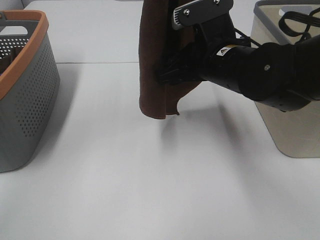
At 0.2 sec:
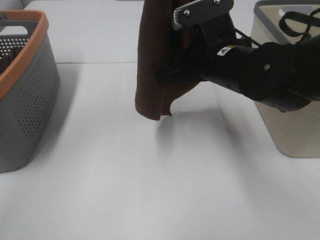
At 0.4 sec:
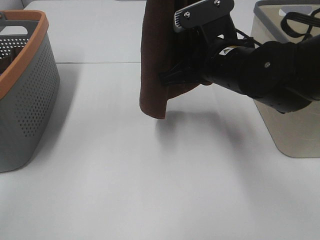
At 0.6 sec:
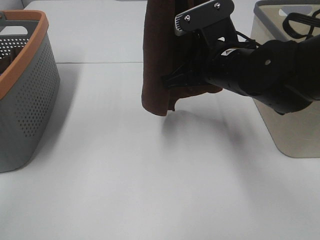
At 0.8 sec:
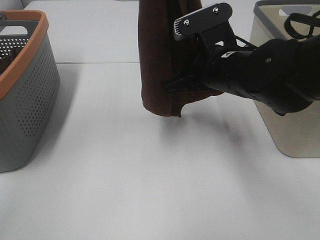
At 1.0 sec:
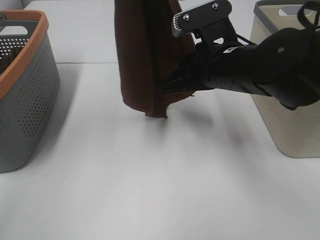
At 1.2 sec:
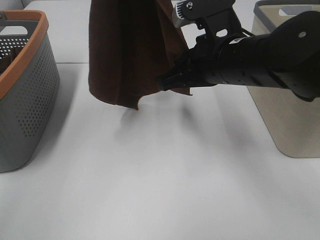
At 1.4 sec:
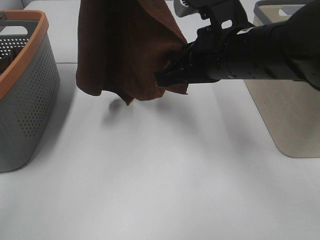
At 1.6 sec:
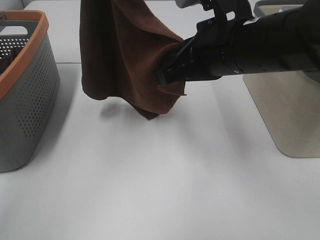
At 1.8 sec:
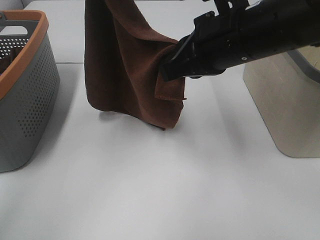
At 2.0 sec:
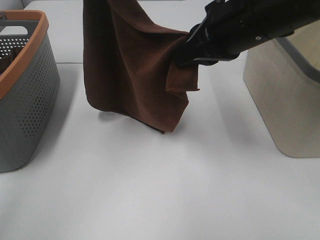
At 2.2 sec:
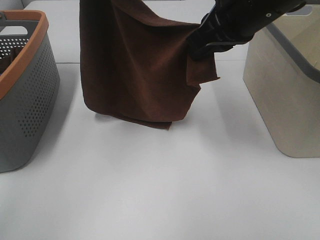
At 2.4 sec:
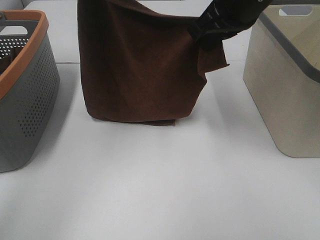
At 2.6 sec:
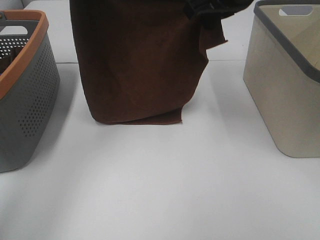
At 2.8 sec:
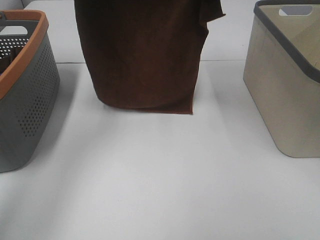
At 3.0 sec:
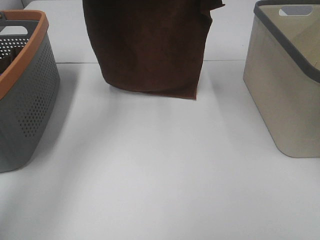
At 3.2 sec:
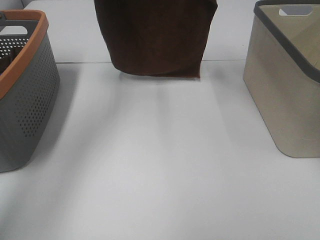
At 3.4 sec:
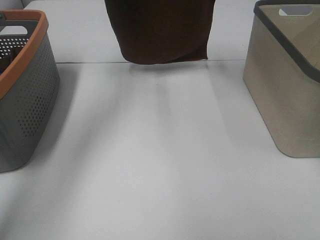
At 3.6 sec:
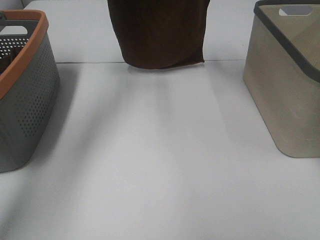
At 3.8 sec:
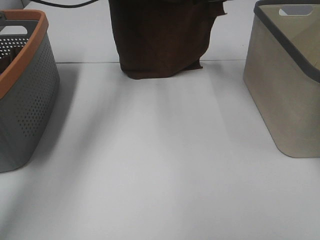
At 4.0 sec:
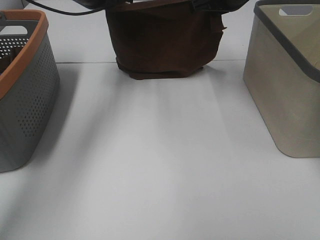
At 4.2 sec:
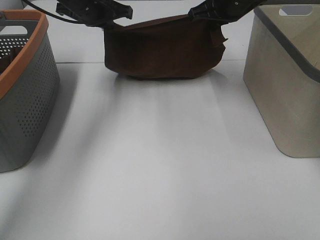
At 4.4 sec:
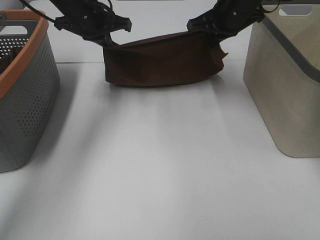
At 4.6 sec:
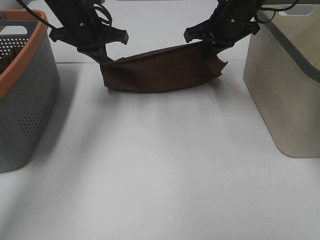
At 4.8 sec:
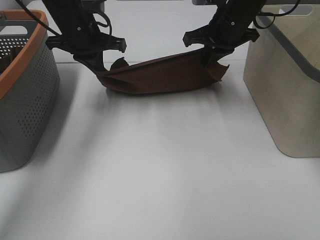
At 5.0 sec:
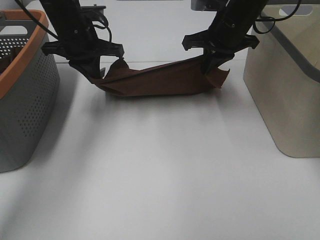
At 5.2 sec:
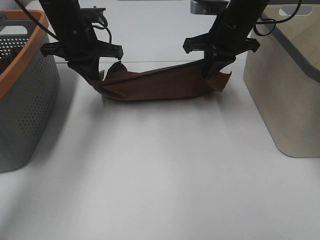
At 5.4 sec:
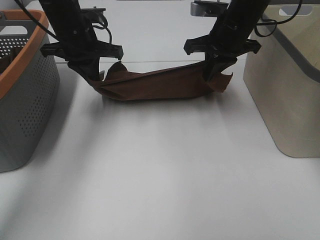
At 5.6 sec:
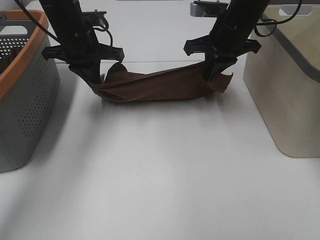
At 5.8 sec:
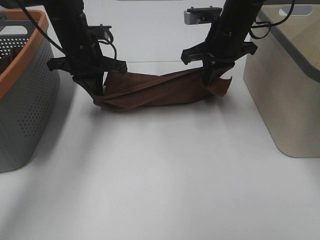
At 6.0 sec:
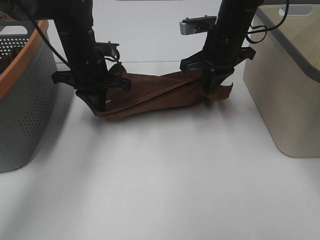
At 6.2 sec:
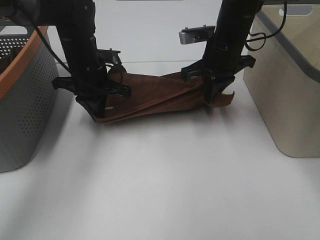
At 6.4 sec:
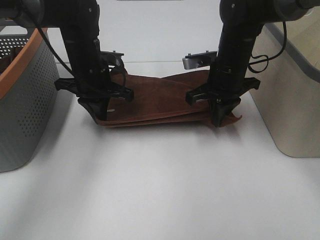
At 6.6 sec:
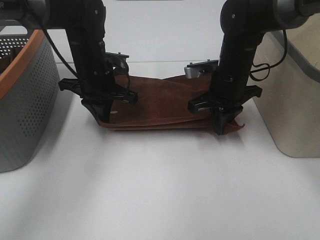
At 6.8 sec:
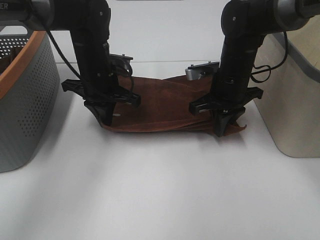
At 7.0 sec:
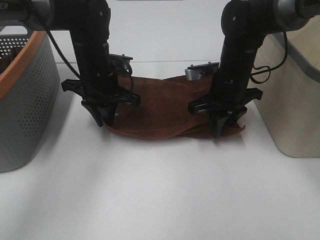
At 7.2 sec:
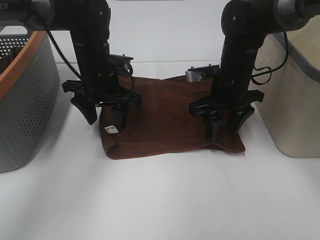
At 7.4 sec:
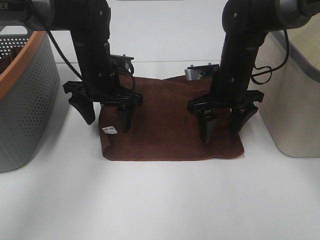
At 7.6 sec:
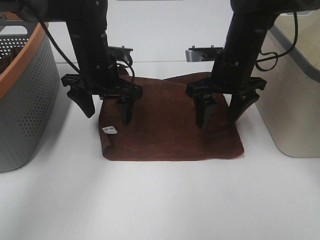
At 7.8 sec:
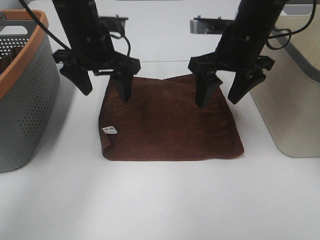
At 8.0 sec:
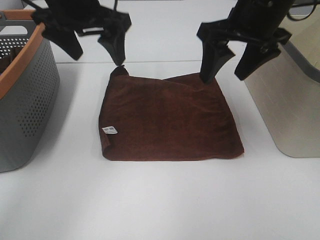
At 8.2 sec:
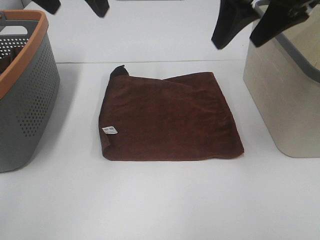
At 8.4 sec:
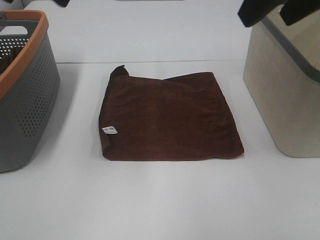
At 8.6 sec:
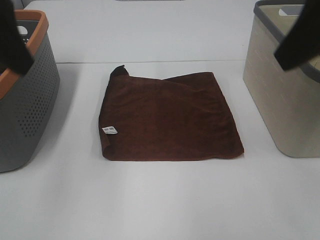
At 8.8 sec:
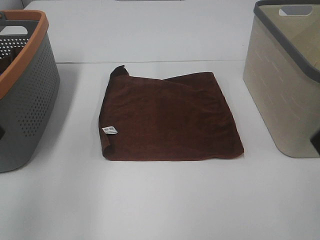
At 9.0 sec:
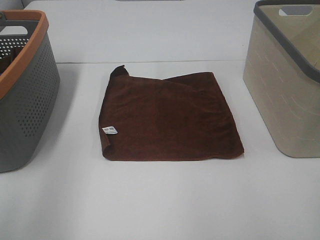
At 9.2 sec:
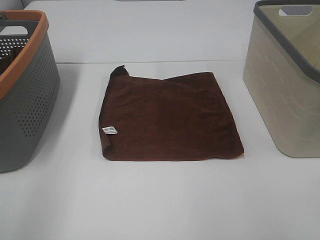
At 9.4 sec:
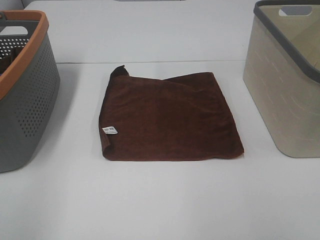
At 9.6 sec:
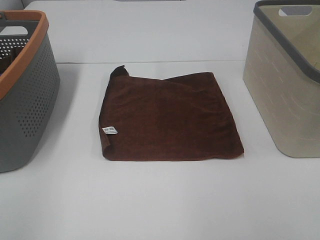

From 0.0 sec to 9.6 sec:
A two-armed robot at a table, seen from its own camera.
Task of the whole recording: Remove the towel and place it.
Step, from 0.0 sec to 2.2 sec: Left hand: spread the brown towel flat on the table.
Step, from 0.0 sec to 2.2 sec: Right hand: spread the brown towel flat on the table.
From 0.0 sec to 1.6 sec: The right gripper ends up some 5 cm from where it was, and closes; the left gripper is displaced to the left and forward by about 10 cm.
From 1.6 sec to 3.2 sec: The left gripper shifts some 15 cm forward and downward, while the right gripper moves forward, about 20 cm.
From 3.2 sec to 4.8 sec: Both grippers move downward, roughly 15 cm.
From 4.8 sec to 6.4 sec: The grippers both shift downward by some 5 cm.
From 6.4 sec to 8.0 sec: The right gripper heads upward and backward, covering roughly 15 cm, and opens its fingers. Meanwhile the left gripper shifts some 15 cm upward, and opens its fingers.
From 8.0 sec to 9.6 sec: The left gripper is displaced backward and to the left by about 40 cm. Meanwhile the right gripper shifts about 35 cm backward and to the right.

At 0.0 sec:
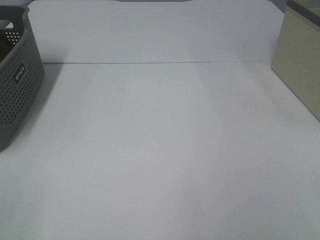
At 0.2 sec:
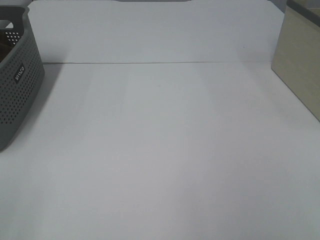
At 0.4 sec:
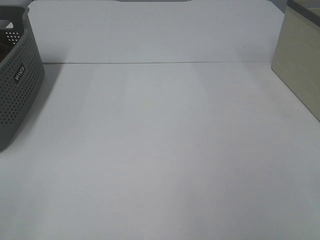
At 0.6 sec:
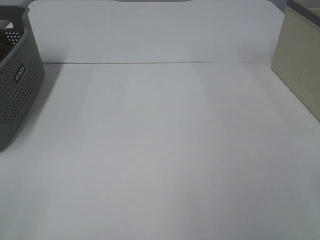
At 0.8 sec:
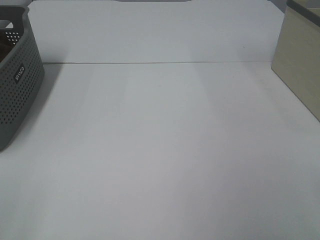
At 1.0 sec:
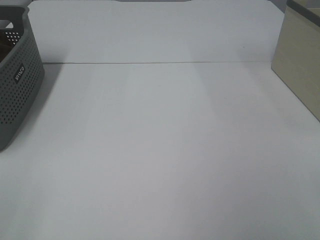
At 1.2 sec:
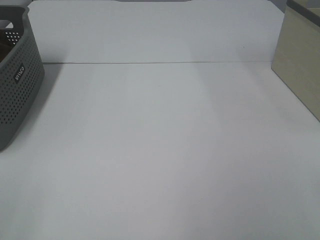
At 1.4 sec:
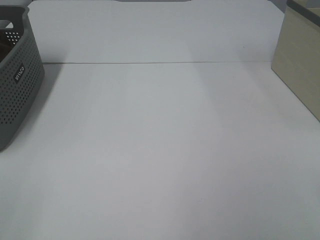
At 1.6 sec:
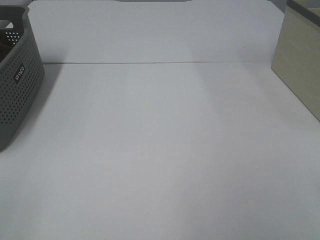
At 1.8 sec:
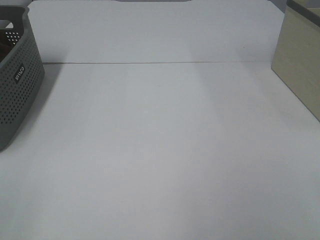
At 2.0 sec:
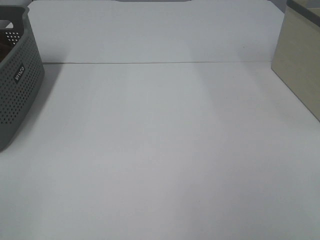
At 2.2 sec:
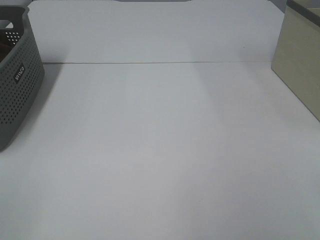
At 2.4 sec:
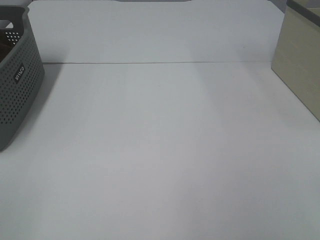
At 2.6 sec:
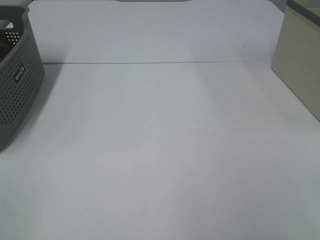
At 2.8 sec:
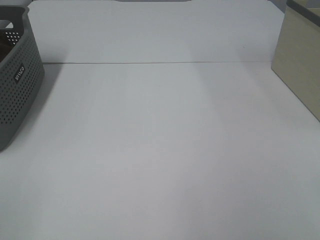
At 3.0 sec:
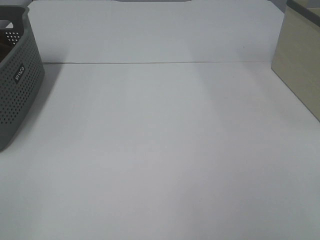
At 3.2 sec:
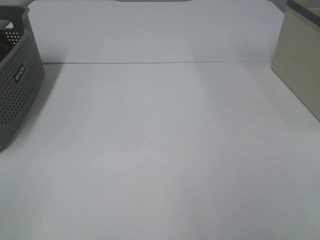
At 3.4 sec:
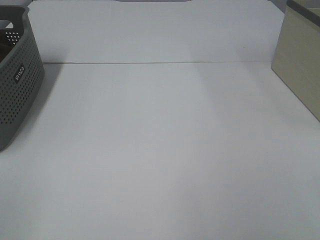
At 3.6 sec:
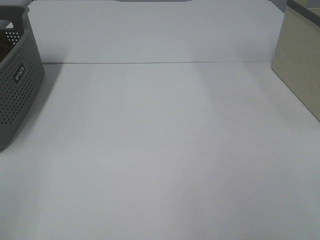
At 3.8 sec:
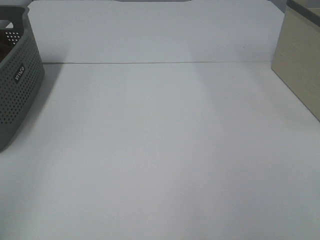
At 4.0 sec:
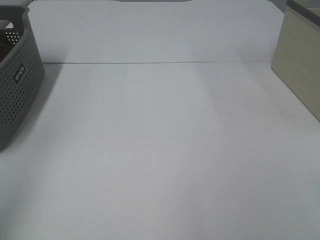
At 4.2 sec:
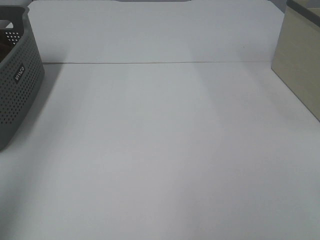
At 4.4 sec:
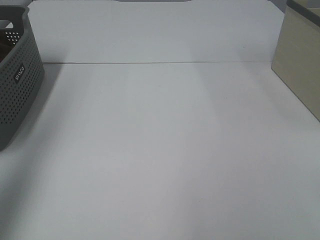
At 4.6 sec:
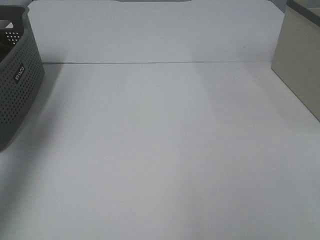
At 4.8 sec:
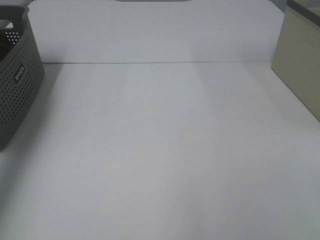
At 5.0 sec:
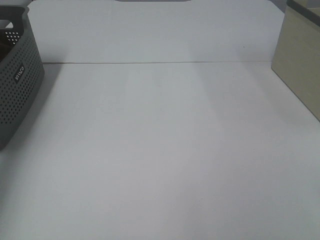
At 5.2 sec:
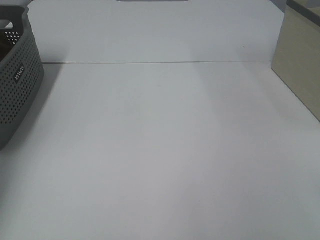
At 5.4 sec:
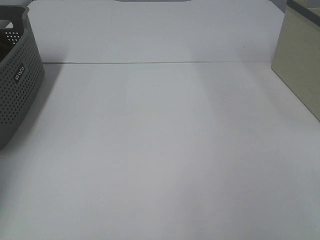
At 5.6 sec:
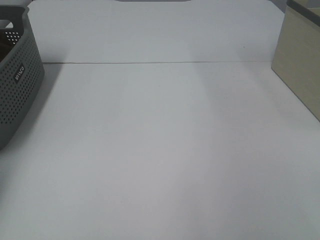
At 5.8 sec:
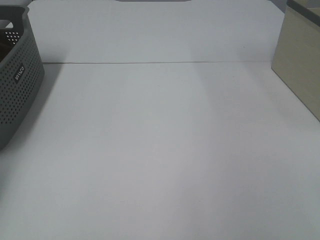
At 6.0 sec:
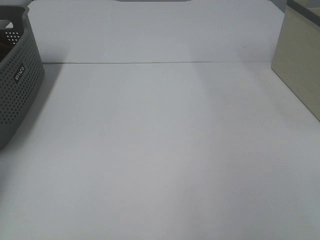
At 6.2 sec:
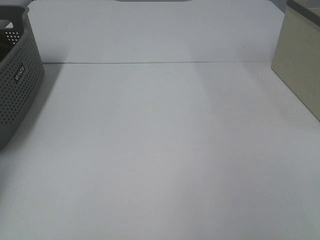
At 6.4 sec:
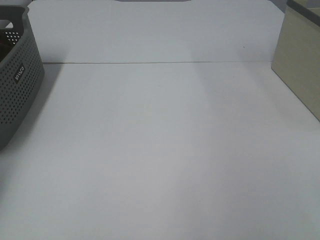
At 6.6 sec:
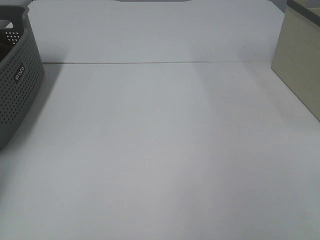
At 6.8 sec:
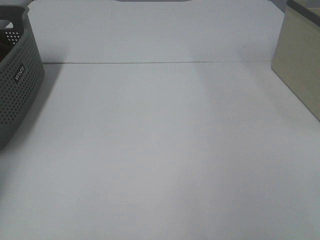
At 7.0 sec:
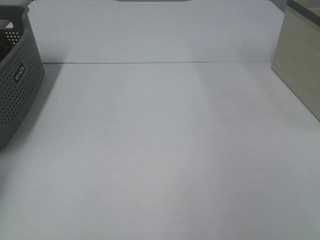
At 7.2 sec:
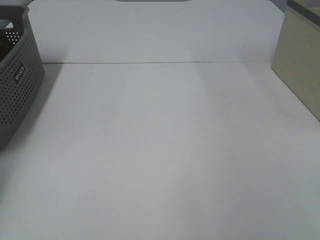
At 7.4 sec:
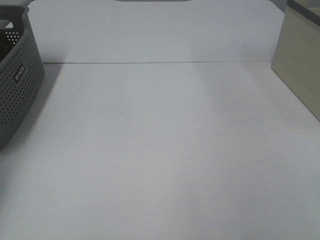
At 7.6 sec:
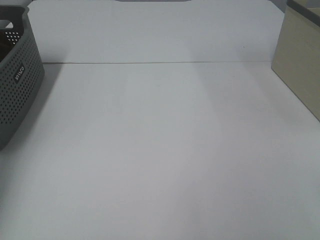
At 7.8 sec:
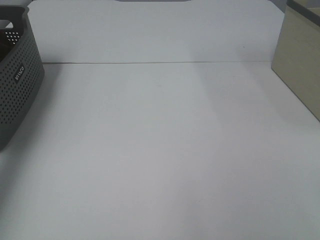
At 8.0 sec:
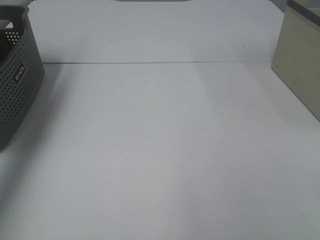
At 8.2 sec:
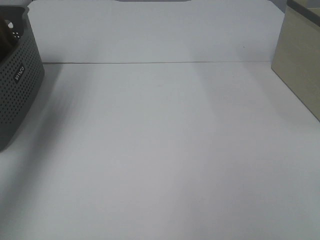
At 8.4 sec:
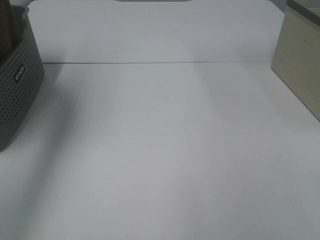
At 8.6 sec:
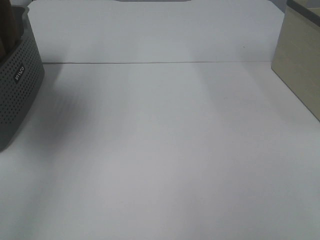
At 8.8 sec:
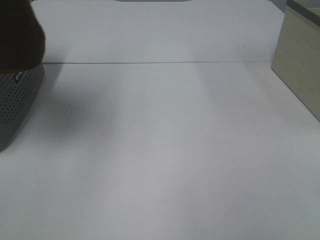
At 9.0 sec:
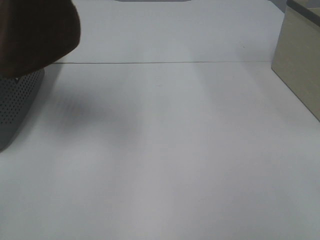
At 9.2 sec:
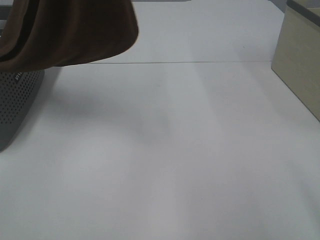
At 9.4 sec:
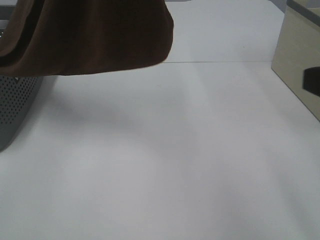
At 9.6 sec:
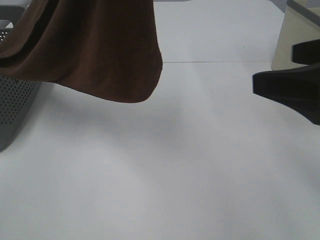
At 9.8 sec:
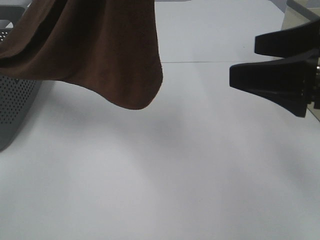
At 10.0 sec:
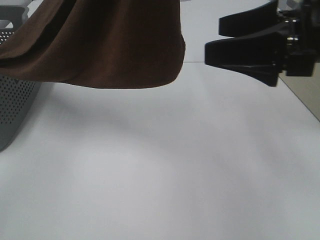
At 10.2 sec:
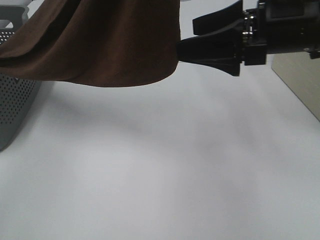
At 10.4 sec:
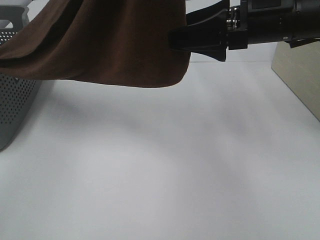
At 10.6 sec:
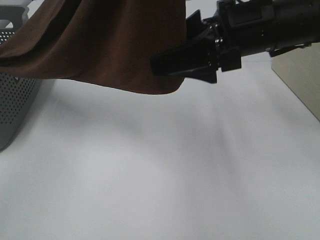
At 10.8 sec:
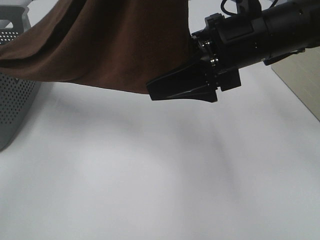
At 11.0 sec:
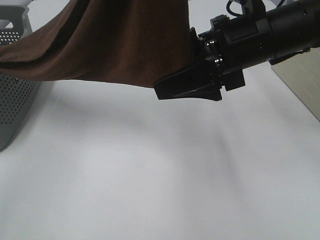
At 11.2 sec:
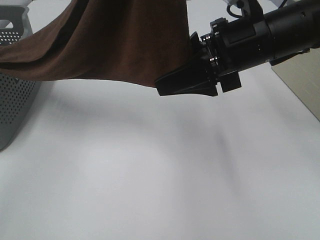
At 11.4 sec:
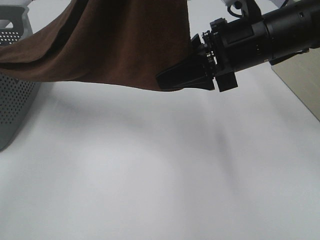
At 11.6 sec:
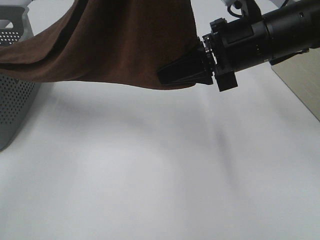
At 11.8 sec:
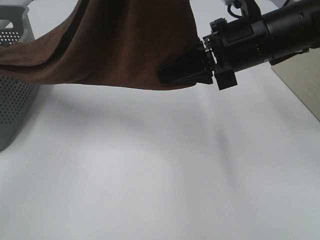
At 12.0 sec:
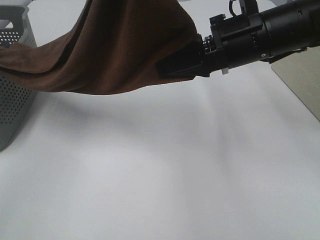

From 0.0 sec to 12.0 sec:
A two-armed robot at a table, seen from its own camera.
Task of the whole recording: Remove the towel and place it.
Step, from 8.2 sec to 11.8 sec: Right hand: grab a corner of the brown towel and straighten it.
From 0.0 sec to 3.0 sec: Both grippers stay put.
From 3.0 sec to 4.4 sec: The left gripper shifts some 25 cm forward and upward.
From 4.4 sec to 6.0 sec: The left gripper heads forward, downward and to the left, covering some 35 cm.
From 7.6 sec to 9.0 sec: The left gripper goes approximately 35 cm to the right, upward and backward.
From 9.0 sec to 10.4 sec: The right gripper heads forward and to the left, covering roughly 30 cm. Meanwhile the left gripper goes roughly 10 cm to the right.
From 10.4 sec to 12.0 sec: The right gripper closes up.
